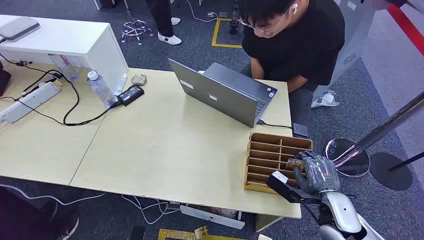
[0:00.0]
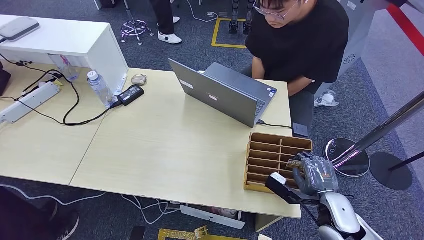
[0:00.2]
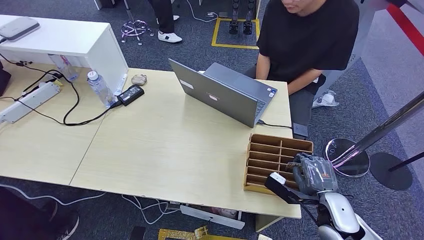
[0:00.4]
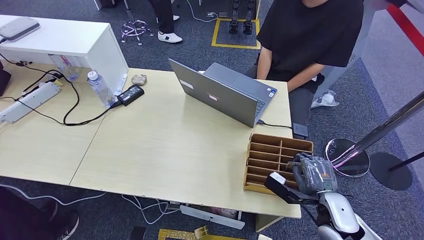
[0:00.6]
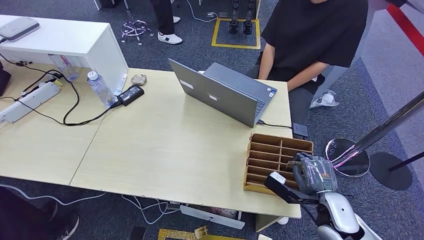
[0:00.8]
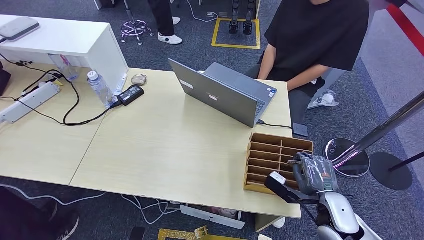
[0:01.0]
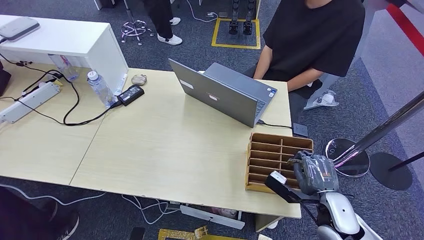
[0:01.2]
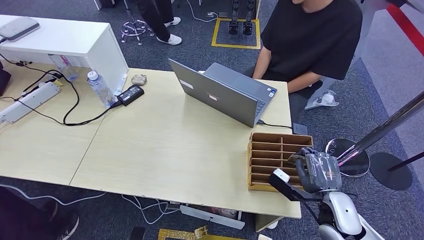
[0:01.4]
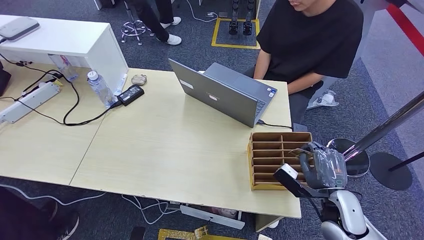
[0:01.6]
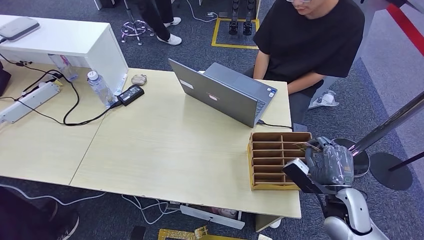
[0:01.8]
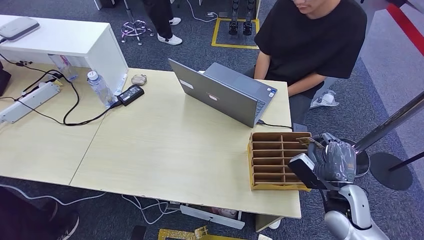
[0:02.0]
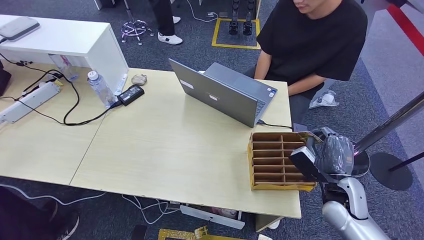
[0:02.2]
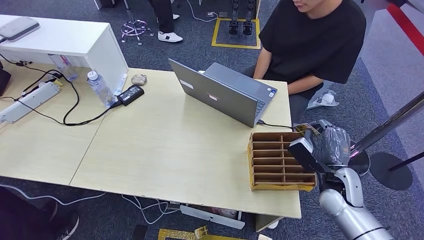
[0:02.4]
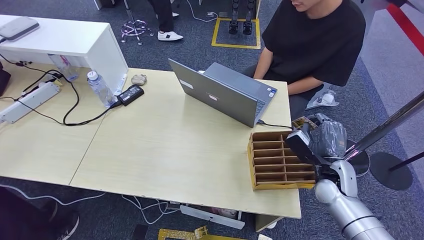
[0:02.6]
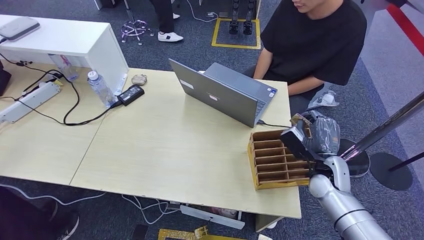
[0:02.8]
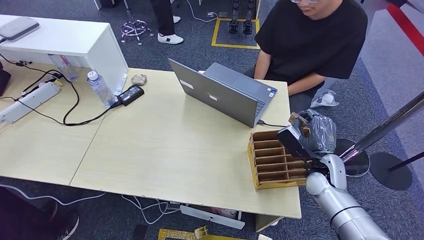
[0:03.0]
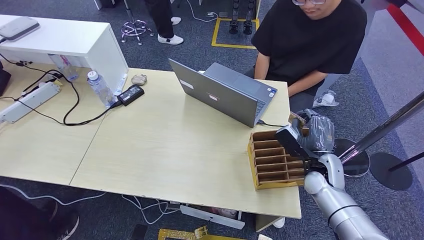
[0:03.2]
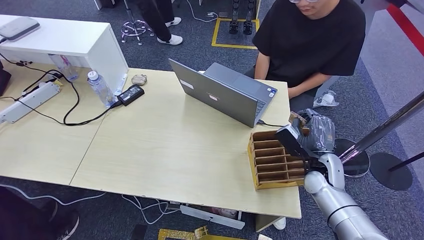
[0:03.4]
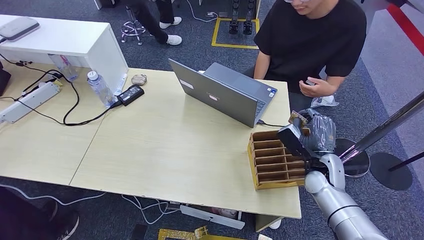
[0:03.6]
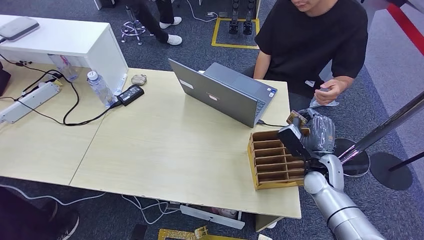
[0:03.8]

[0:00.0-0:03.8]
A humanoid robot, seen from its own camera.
Step, 0:00.0 to 0:03.8: Pick up the room card from the card holder.
0:01.2 to 0:02.6: The right hand heads forward, covering approximately 10 cm.
0:02.6 to 0:03.8: The hands move only a little.
